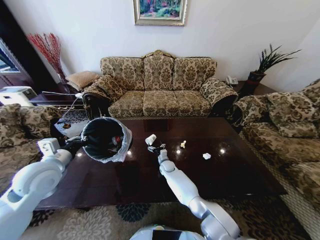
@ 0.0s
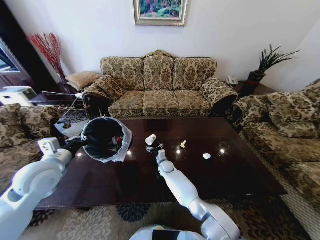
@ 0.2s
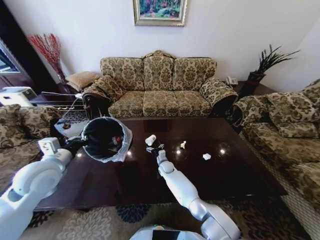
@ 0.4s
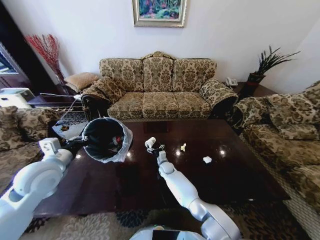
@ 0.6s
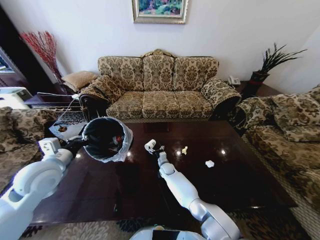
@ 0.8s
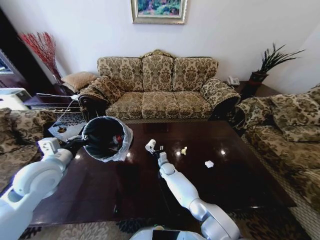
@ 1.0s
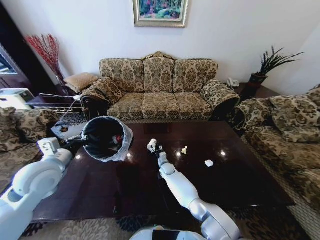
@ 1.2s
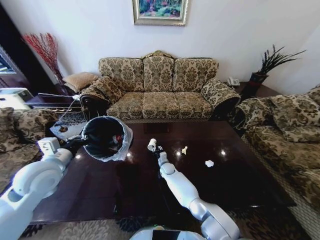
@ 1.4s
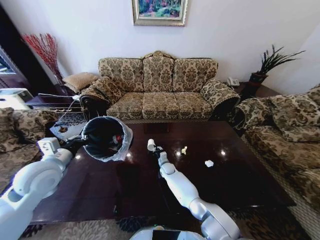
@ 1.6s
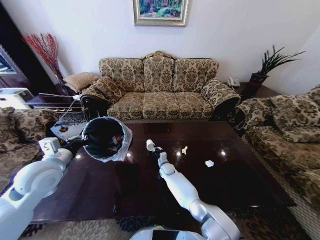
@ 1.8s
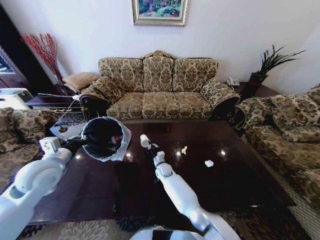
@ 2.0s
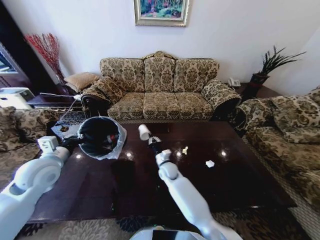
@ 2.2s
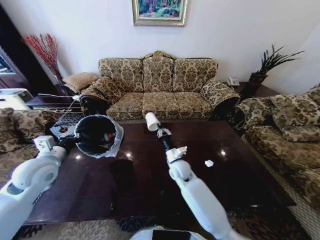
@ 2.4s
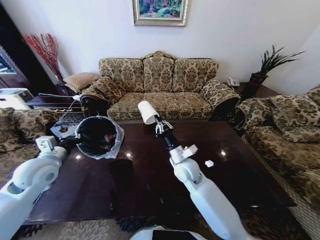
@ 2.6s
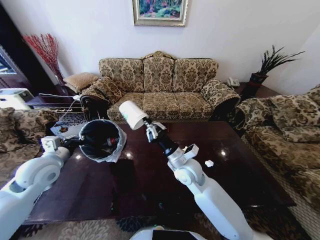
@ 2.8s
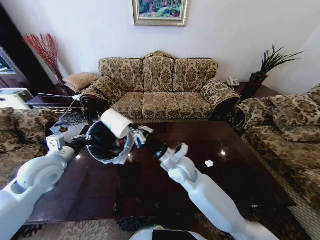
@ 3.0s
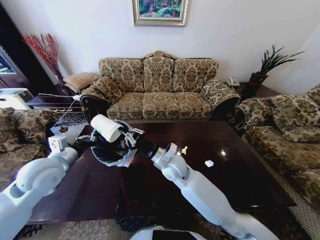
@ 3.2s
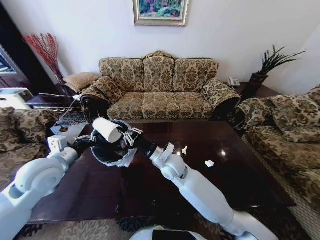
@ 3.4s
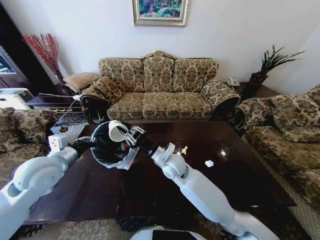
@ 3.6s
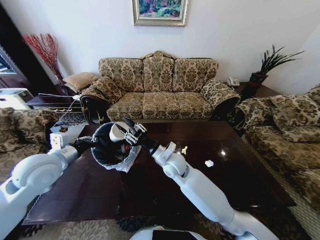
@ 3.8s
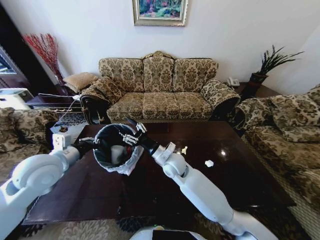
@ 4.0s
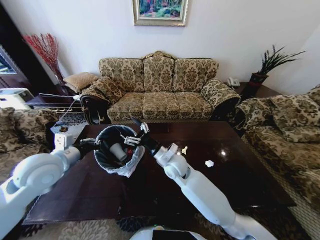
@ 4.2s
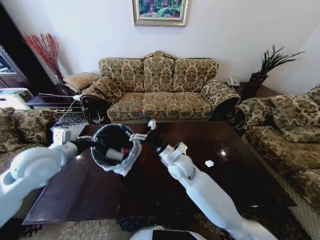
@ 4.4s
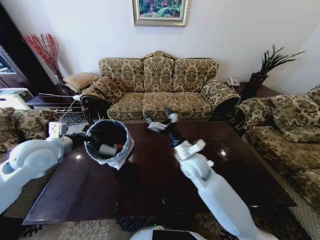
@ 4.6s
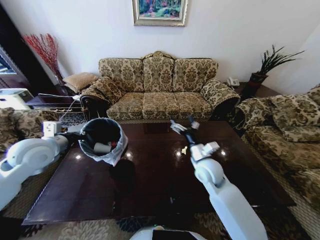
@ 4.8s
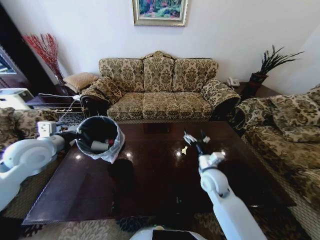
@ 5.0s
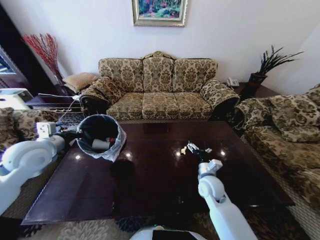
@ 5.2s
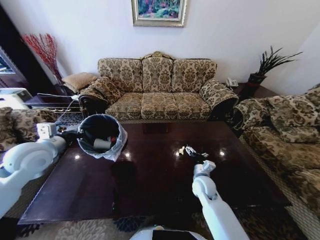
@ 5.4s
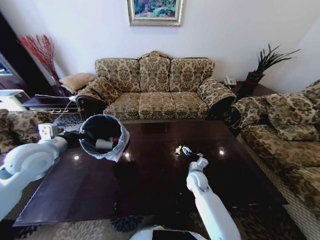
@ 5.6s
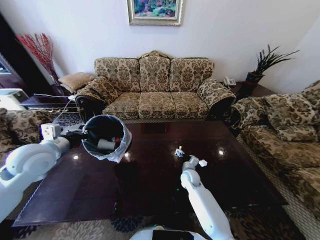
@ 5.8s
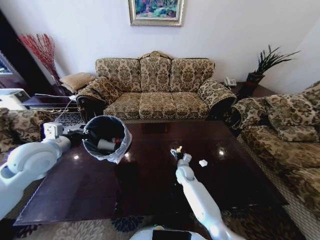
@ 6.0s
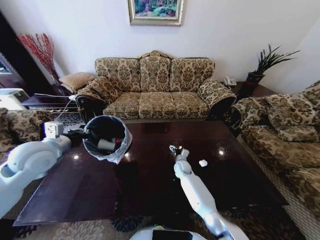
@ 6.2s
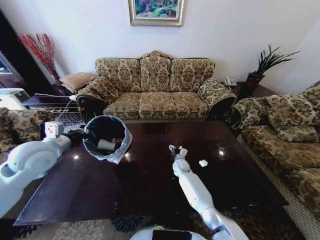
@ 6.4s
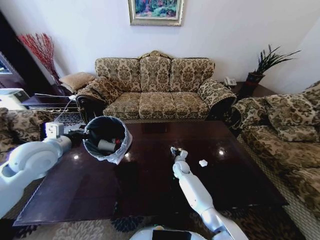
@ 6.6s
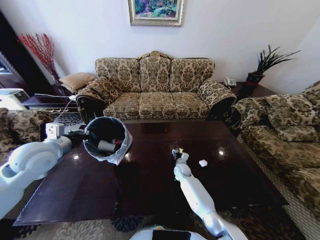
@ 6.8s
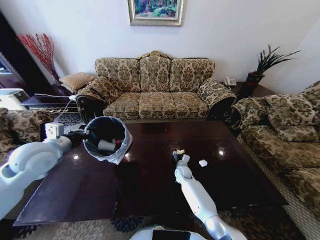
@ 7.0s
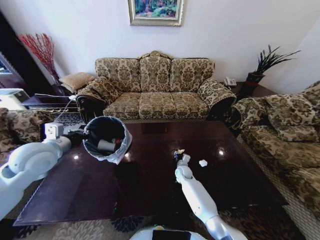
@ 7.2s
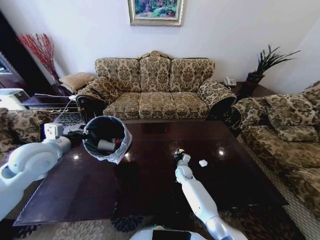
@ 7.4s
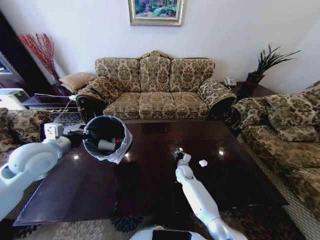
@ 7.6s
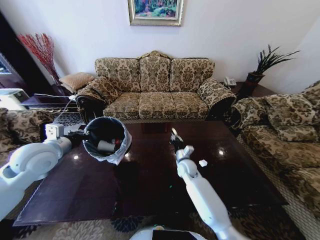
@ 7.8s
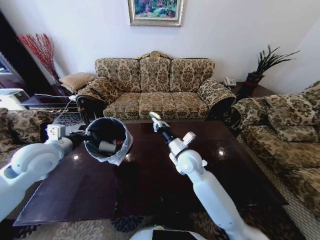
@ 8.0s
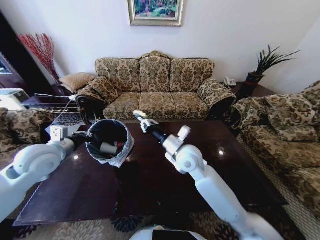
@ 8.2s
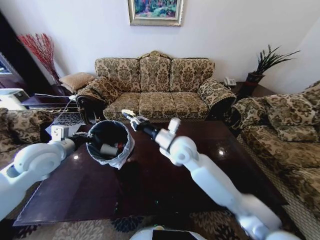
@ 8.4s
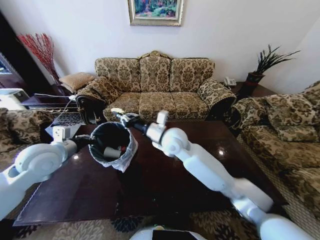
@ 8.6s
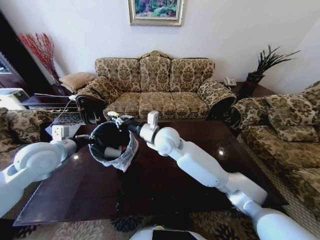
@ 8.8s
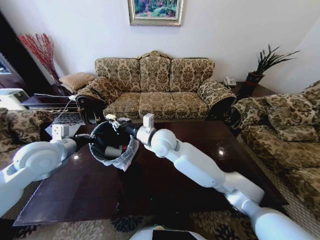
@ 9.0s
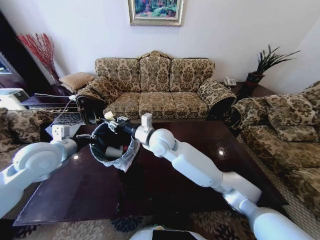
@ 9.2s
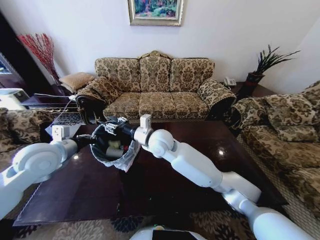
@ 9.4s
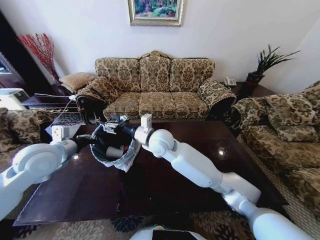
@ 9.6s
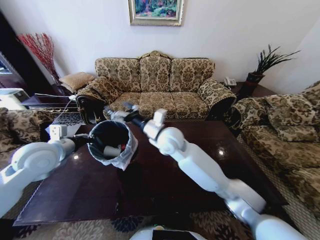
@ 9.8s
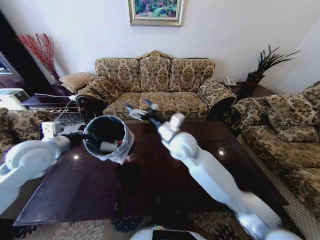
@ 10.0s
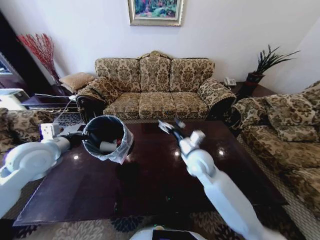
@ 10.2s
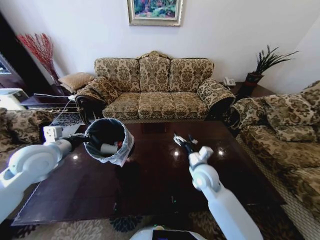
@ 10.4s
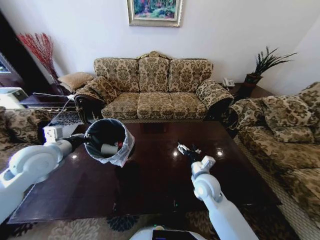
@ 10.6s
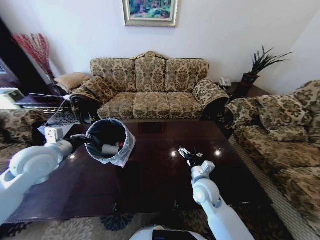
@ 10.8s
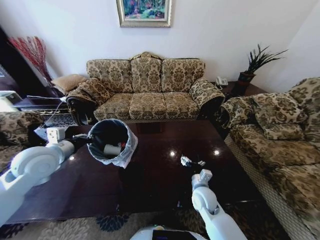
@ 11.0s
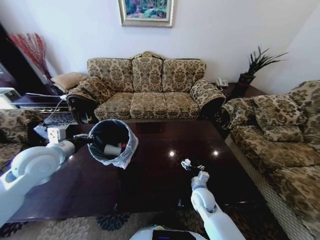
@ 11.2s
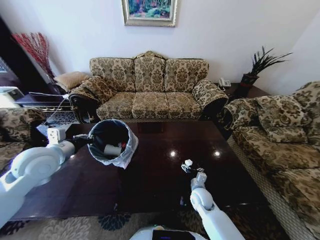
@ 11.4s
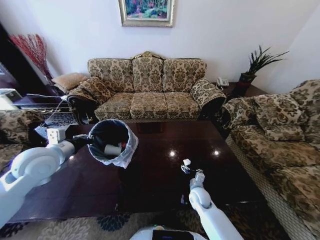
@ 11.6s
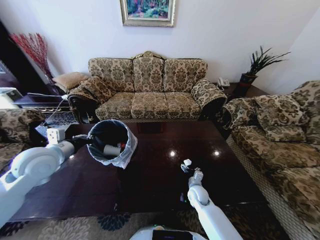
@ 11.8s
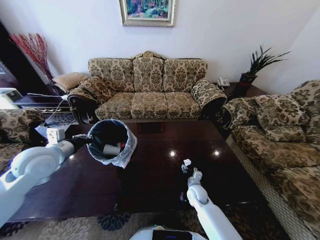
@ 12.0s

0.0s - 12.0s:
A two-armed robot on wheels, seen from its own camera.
Task of the whole recording: Move to the front of the table and place the trash on the table into the trash bin.
0.0s - 1.6s: The right gripper closes up.
1.6s - 3.0s: The right gripper moves upward and backward, approximately 30 cm.
3.0s - 4.4s: The left gripper moves upward, roughly 5 cm; the right gripper opens its fingers.
4.4s - 6.0s: The right gripper shifts roughly 20 cm downward.
6.0s - 7.6s: The right gripper closes its fingers.
7.6s - 9.0s: The right gripper goes approximately 35 cm upward and to the left.
9.0s - 10.4s: The right gripper is displaced to the right and downward by approximately 20 cm, and opens.
10.4s - 12.0s: The right gripper goes some 20 cm downward.

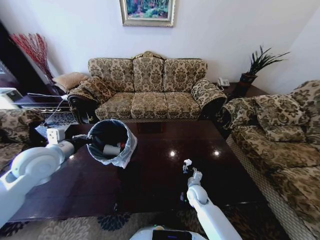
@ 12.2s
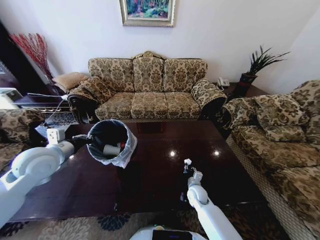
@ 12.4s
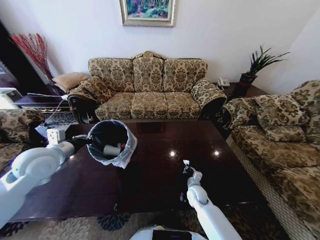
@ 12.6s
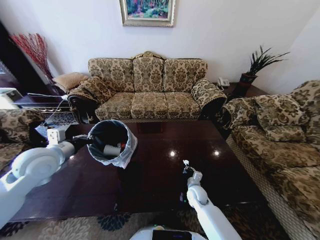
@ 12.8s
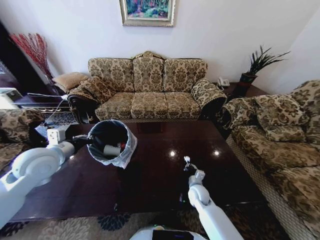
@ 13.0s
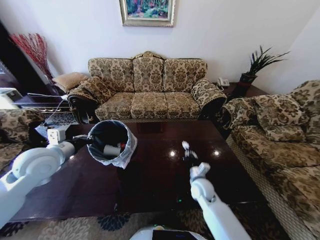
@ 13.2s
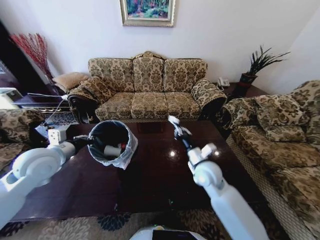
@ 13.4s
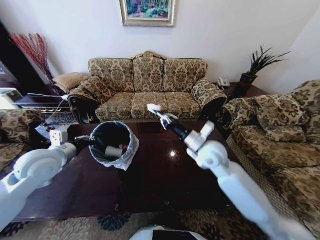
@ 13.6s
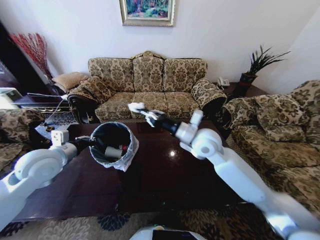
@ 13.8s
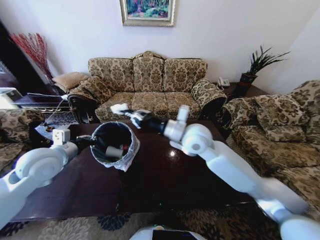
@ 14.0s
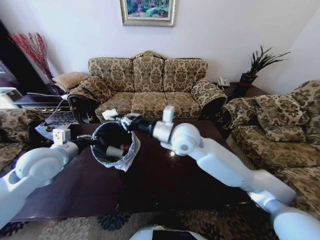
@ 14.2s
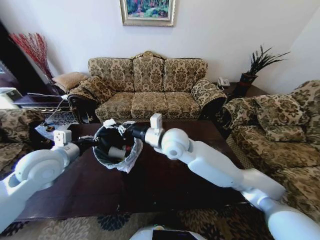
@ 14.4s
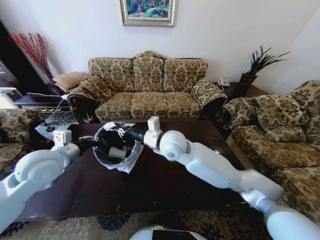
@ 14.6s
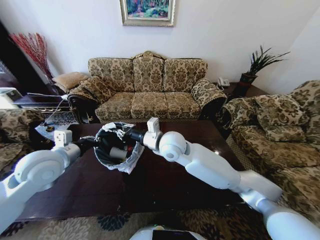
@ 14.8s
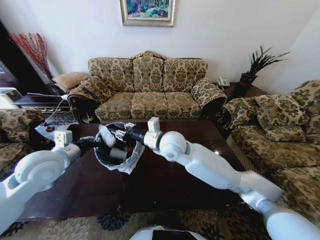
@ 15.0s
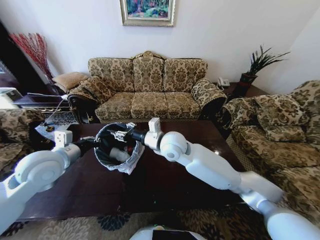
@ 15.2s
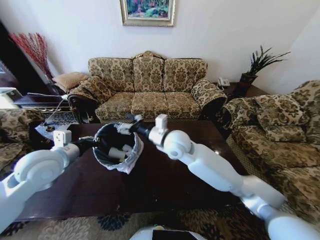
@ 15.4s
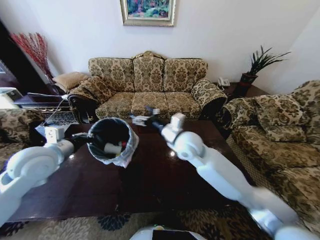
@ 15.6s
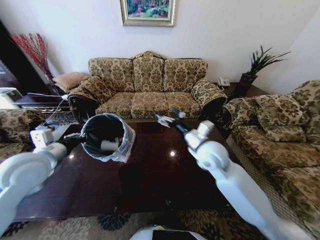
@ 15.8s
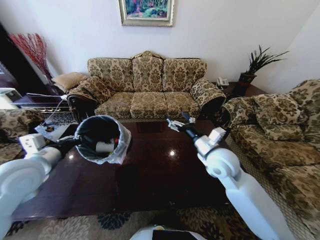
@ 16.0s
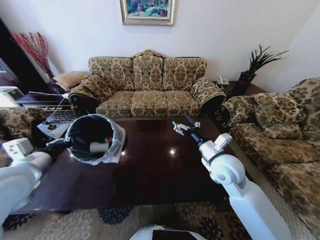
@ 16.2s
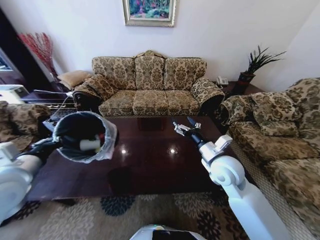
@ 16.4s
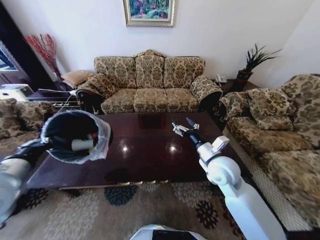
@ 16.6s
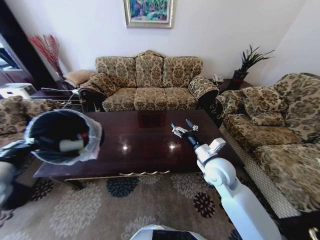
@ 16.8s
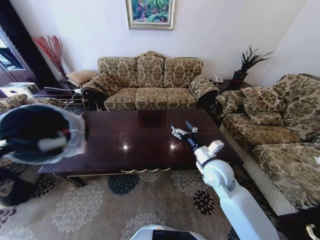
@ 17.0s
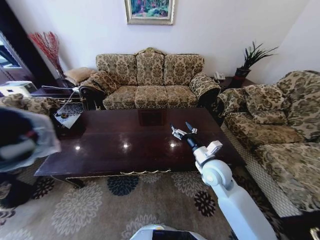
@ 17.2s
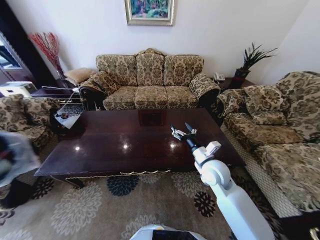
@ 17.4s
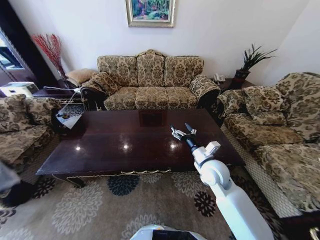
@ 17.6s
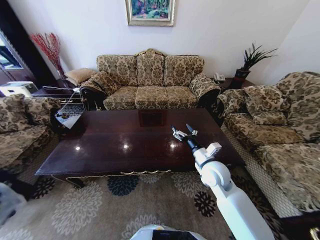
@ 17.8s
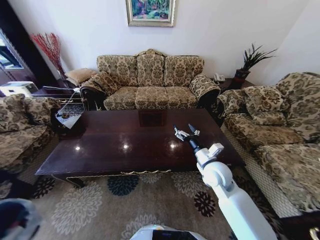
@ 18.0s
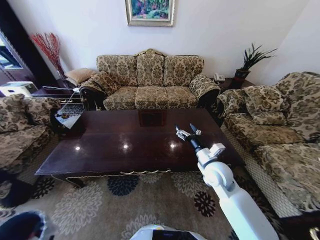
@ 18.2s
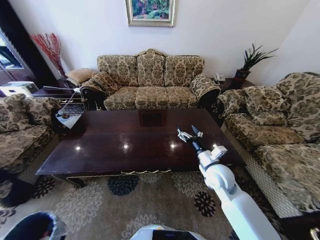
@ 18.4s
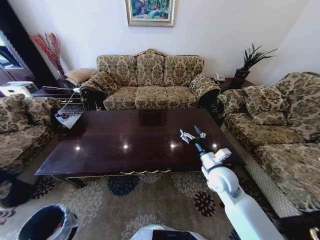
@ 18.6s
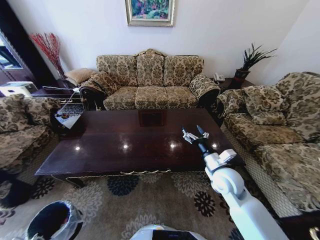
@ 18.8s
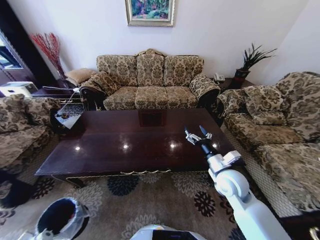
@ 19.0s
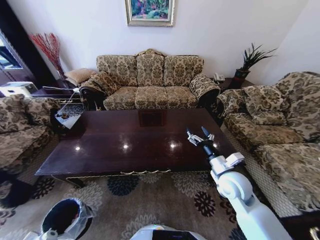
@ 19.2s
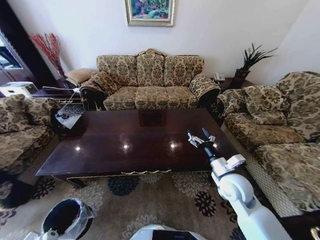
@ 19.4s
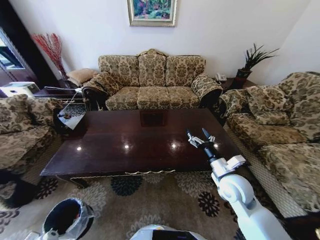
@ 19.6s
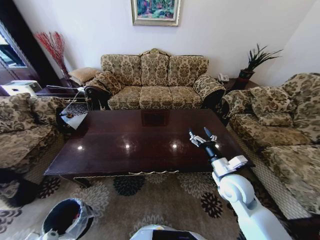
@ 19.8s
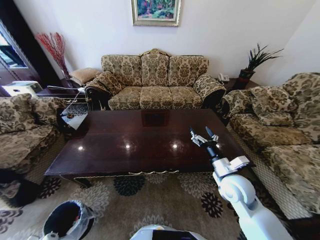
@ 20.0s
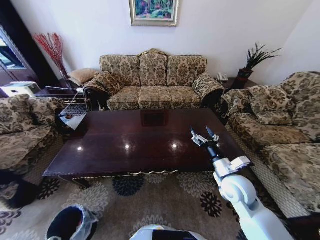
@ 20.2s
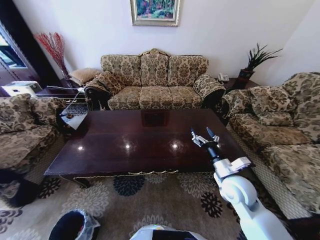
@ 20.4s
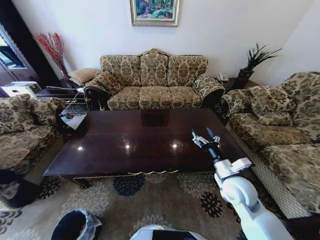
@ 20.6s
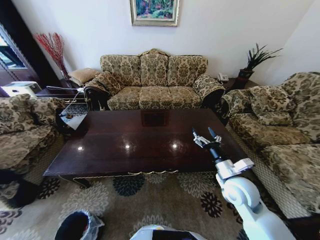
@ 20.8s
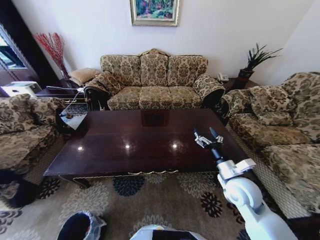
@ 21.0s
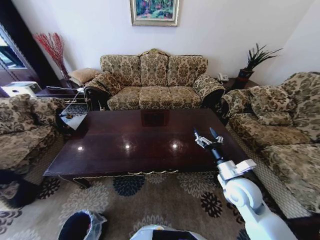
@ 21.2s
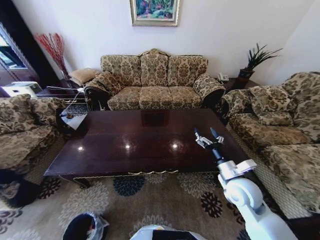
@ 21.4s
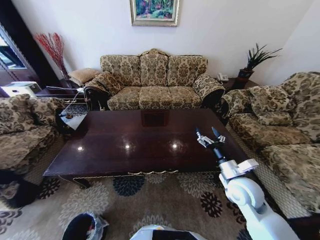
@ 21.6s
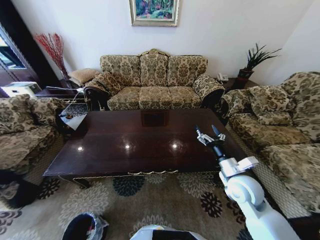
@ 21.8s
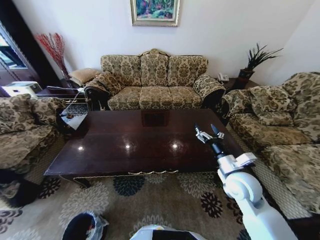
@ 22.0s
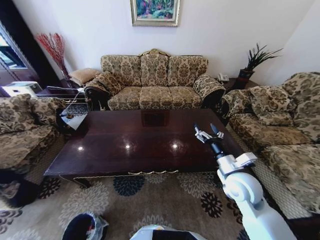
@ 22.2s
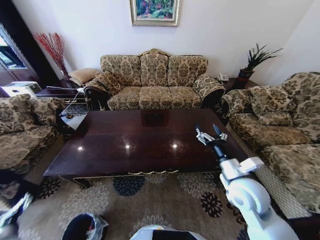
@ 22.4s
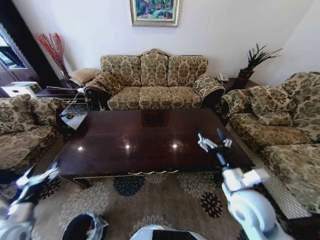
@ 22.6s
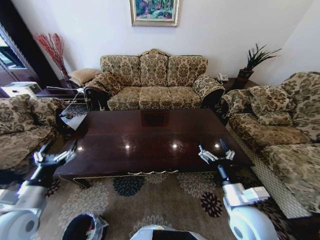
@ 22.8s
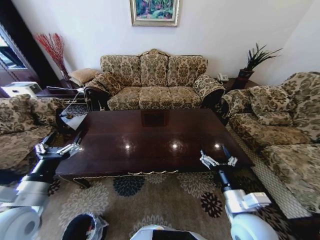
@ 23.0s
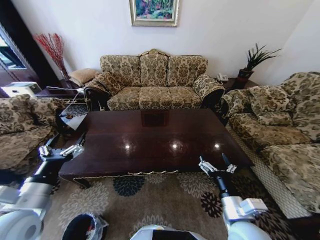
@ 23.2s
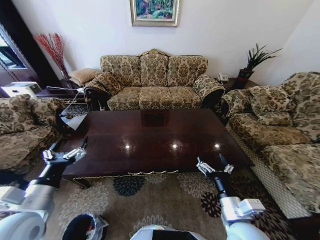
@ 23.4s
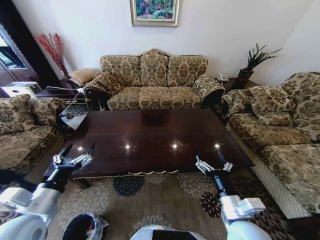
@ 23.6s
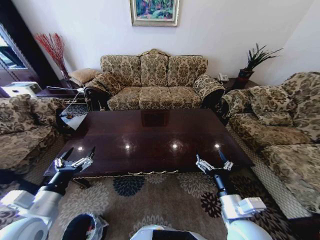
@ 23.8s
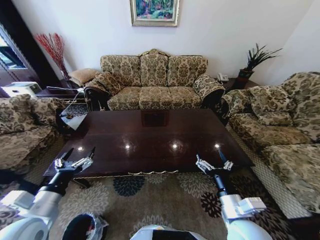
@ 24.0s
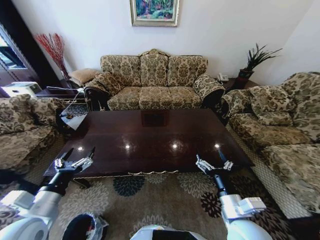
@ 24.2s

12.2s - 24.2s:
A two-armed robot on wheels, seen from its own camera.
Task of the whole recording: Move to the front of the table and place the trash on the table into the trash bin.
12.2s - 13.8s: The right gripper heads upward, covering approximately 35 cm, and closes up.
13.8s - 15.2s: The right gripper travels to the left by some 10 cm, and opens its fingers.
15.2s - 16.6s: The left gripper shifts approximately 10 cm backward and to the left; the right gripper travels to the right by approximately 20 cm, and opens its fingers.
16.6s - 18.2s: The right gripper moves downward, some 5 cm. Meanwhile the left gripper moves downward, to the left and backward, some 40 cm.
18.2s - 19.8s: The left gripper heads downward and forward, covering about 15 cm. The right gripper shifts by roughly 5 cm.
19.8s - 21.2s: The left gripper goes some 5 cm downward.
21.2s - 22.6s: The right gripper travels backward by some 5 cm. The left gripper moves upward, some 35 cm, and opens its fingers.
22.6s - 24.2s: The right gripper goes some 5 cm backward. Meanwhile the left gripper travels to the right and upward by approximately 15 cm.
